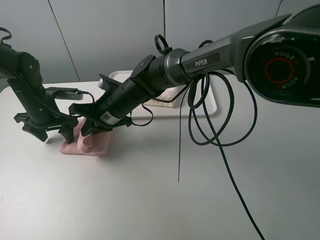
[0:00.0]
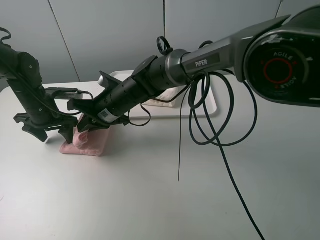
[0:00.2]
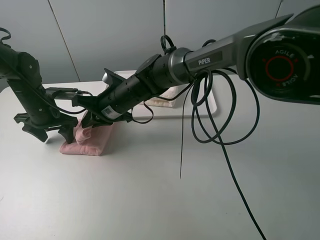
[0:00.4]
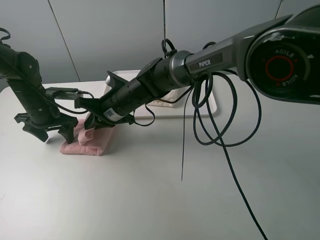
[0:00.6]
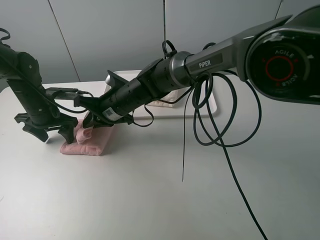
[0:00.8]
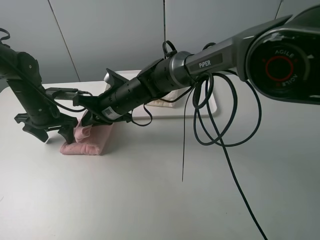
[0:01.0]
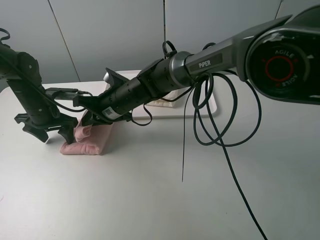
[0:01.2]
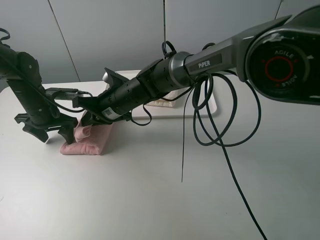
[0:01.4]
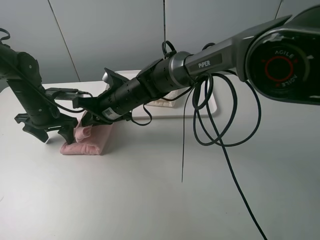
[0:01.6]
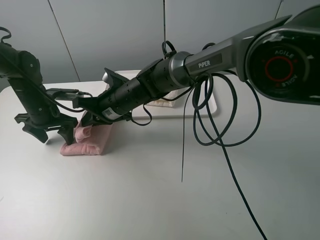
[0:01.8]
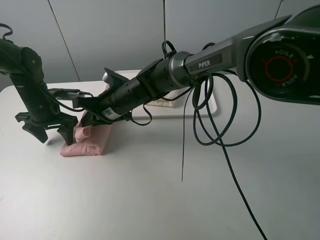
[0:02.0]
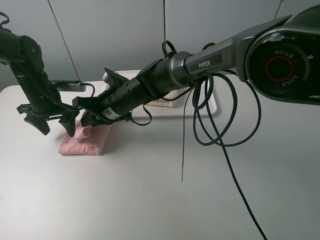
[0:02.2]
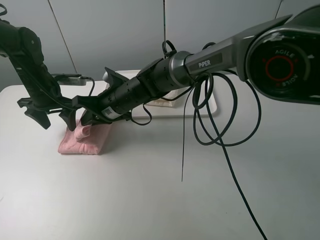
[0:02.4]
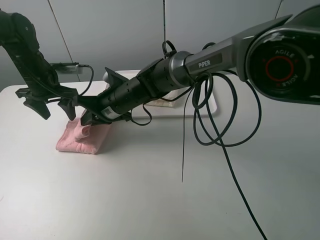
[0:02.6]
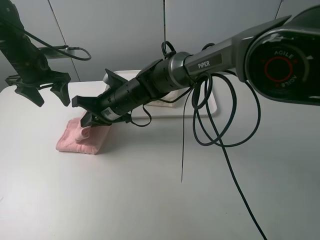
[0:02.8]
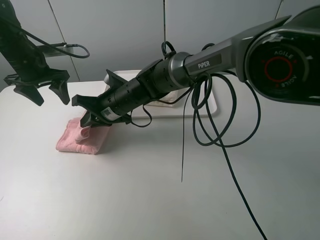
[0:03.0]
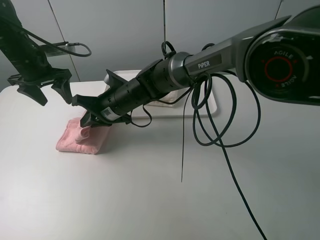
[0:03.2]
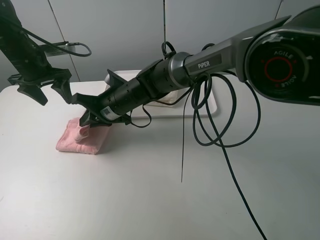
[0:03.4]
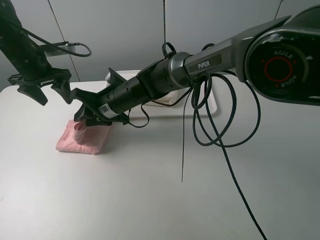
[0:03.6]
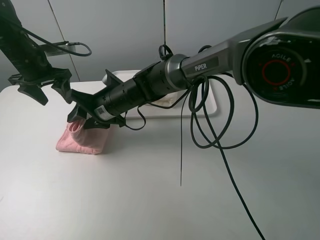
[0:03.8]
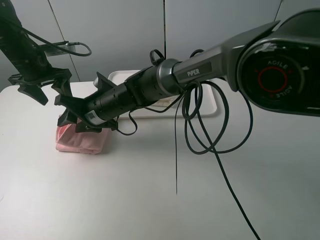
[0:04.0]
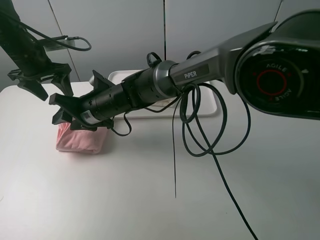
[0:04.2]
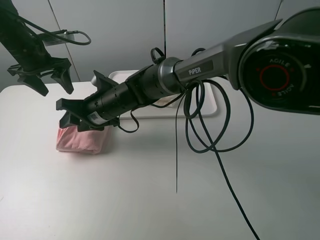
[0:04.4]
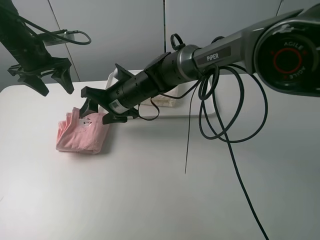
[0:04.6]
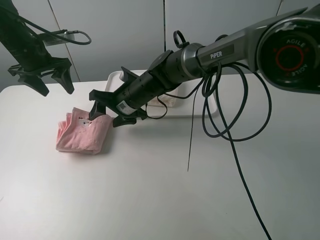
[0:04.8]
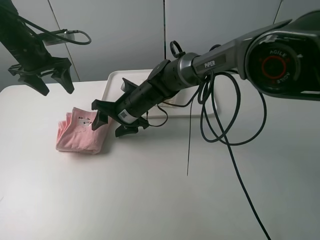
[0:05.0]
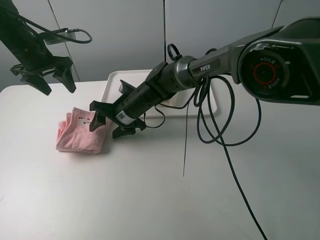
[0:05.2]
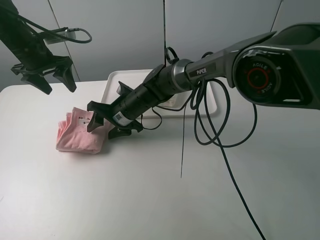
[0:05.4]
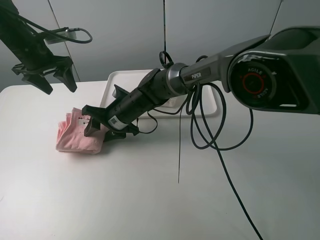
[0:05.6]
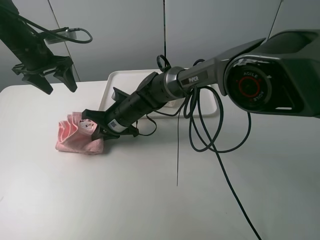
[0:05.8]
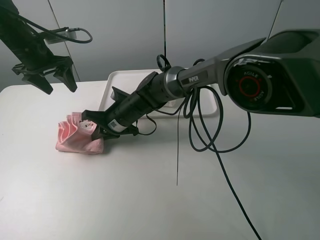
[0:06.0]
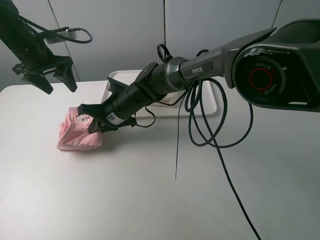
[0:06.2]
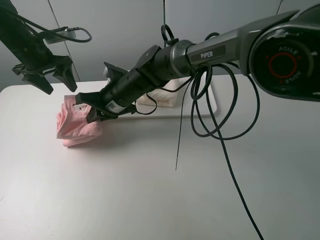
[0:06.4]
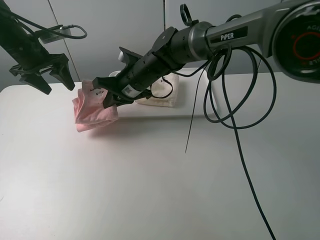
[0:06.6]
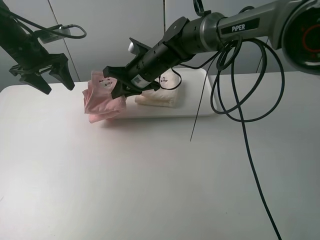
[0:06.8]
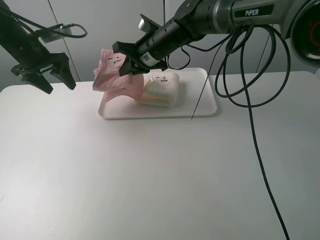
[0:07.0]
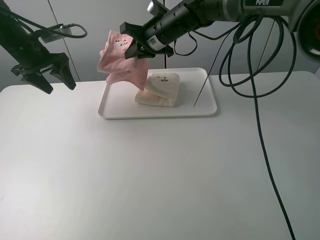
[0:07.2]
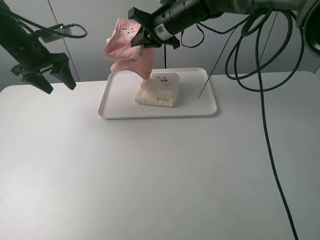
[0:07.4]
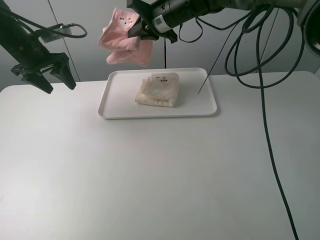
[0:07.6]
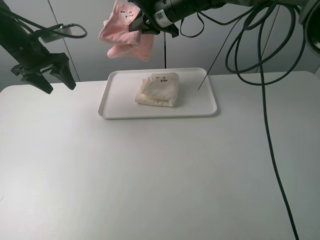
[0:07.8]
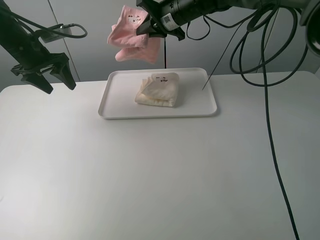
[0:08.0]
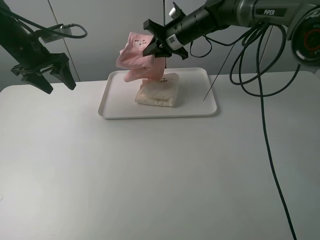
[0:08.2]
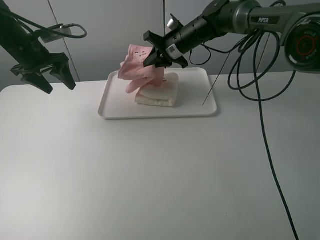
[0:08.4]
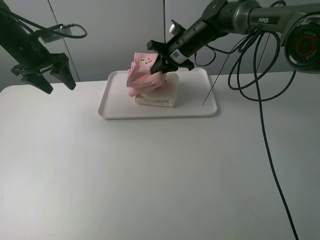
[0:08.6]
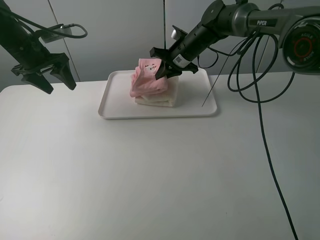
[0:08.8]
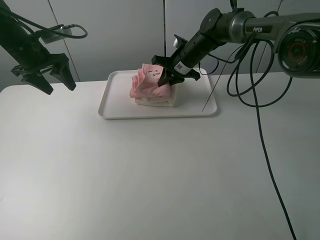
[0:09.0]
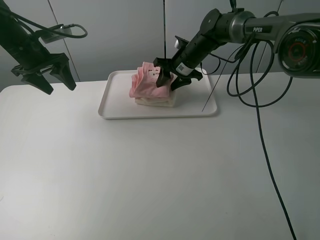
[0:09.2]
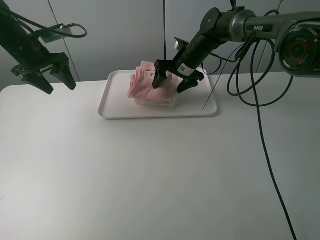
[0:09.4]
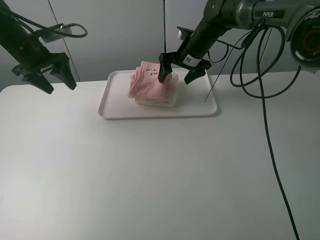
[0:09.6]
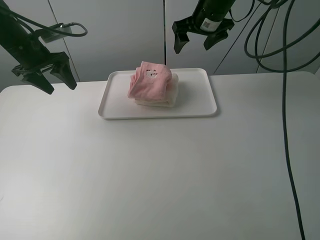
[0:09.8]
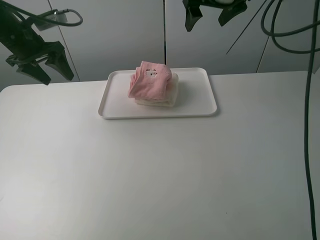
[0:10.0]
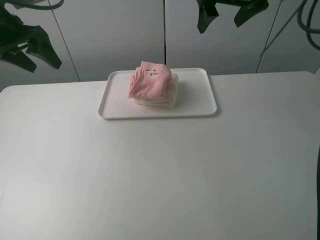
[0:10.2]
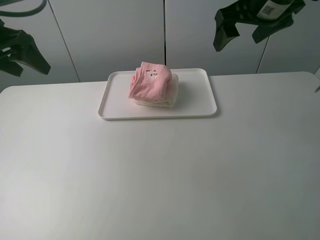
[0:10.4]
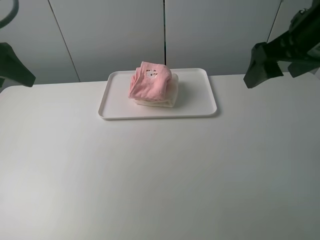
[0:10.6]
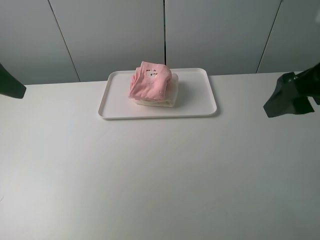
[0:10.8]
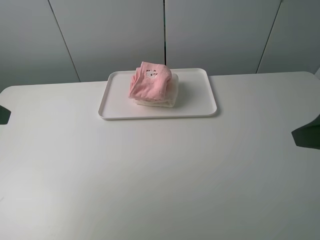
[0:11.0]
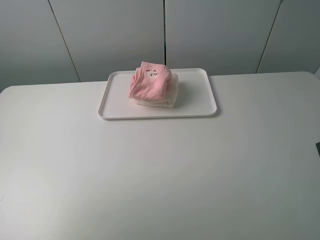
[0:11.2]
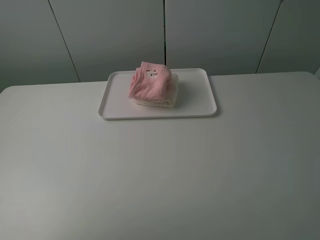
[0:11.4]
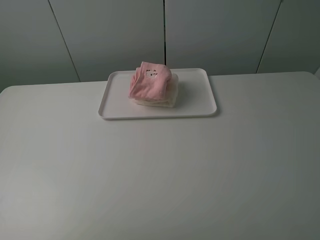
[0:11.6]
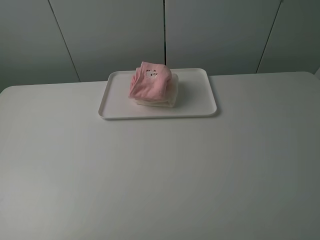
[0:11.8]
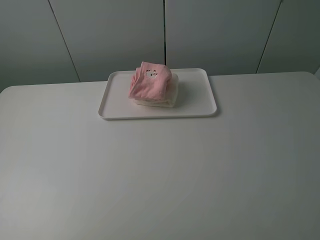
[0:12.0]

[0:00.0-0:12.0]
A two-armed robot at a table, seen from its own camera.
Task of the whole recording: fold one of the towels by two grippers and place it on the tray,then fold another towel by two grippers and place it on the folded towel.
Step, 0.0 to 4.2 s: Fold the pink towel from right to left with right gripper.
Step, 4.4 to 5.8 s: Grasp the pink towel with the right gripper.
Step, 6.0 to 9.6 s: Place the pink towel on the white towel with the right gripper.
0.0 to 1.6 s: The grippers make only small movements.
1.6 to 3.0 s: The left gripper moves upward, about 10 cm.
3.0 to 4.4 s: The right gripper opens up.
4.4 to 6.0 s: The right gripper moves approximately 5 cm, and closes its fingers.
6.0 to 7.6 s: The right gripper shifts approximately 25 cm upward, forward and to the right.
7.6 to 9.0 s: The right gripper is displaced downward by approximately 10 cm.
9.0 to 10.4 s: The left gripper goes about 15 cm backward and upward; the right gripper heads upward, backward and to the right, covering approximately 25 cm, and opens up.
10.4 to 12.0 s: The grippers both shift backward by some 30 cm.

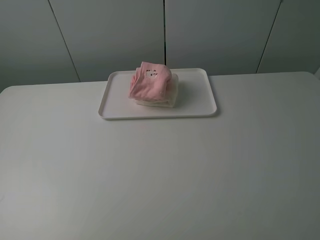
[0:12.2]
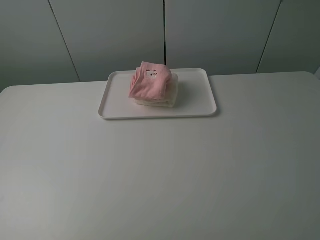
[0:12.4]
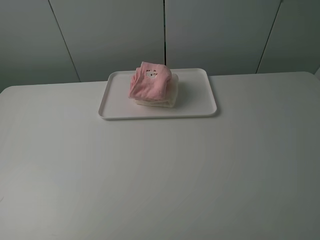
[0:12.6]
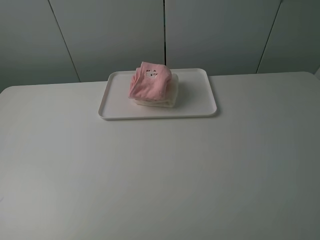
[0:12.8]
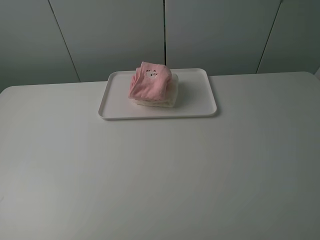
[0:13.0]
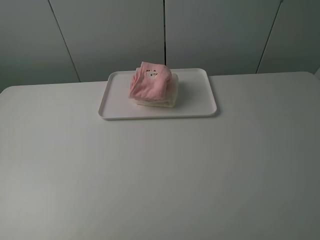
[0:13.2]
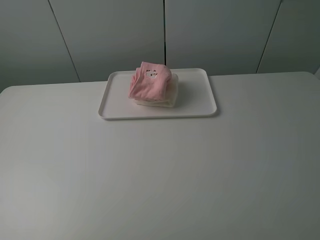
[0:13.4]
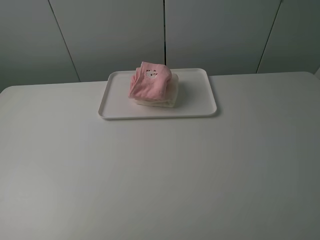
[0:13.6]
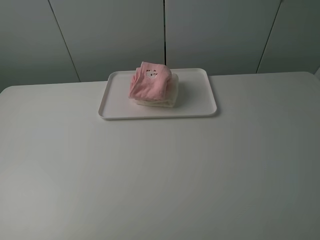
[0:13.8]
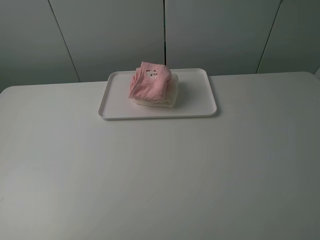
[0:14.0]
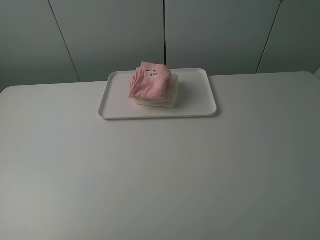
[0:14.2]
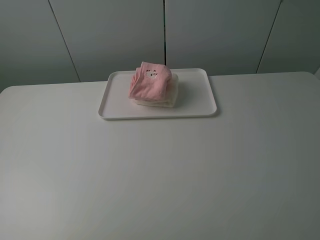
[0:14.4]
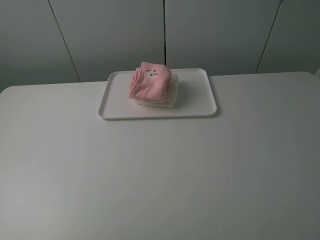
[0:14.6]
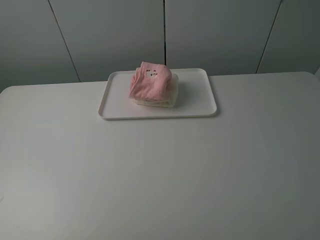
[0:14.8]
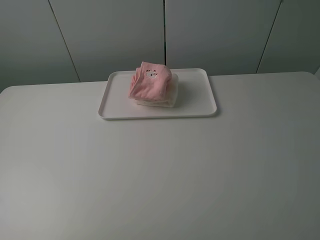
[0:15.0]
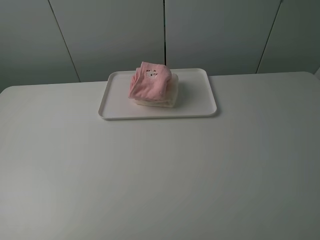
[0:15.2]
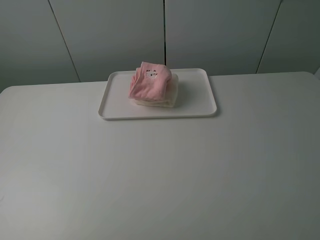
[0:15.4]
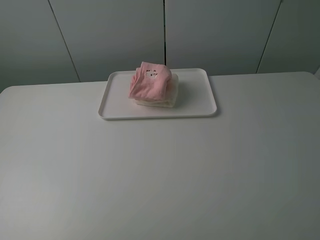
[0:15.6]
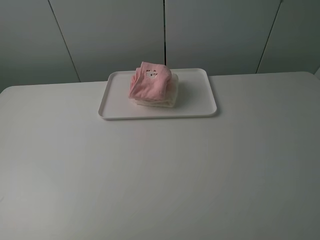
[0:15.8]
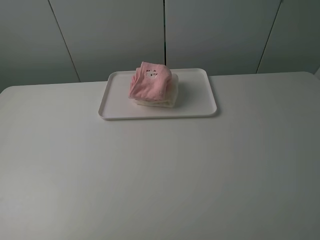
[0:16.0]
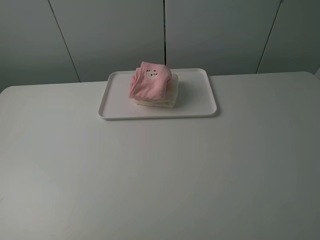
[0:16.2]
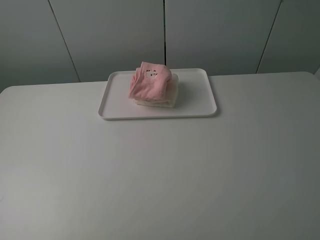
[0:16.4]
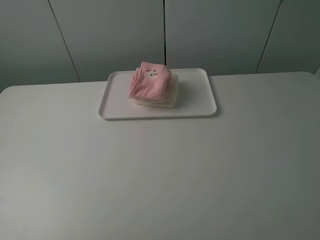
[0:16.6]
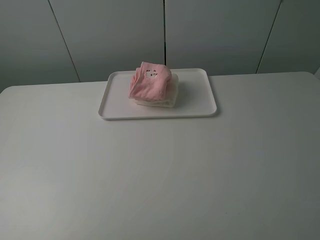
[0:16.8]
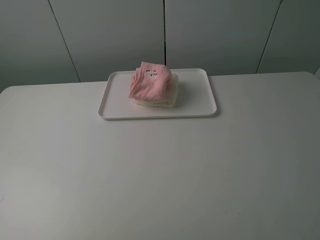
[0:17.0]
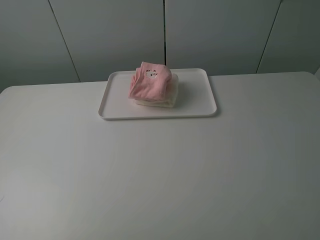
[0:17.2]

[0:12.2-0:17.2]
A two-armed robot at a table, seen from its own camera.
Task of the whole recording: fold one of the towels by two grippers and place it on the tray,then fold another towel by two grippers and place it on the folded towel.
15.6 to 17.2 s: Both grippers stay put.

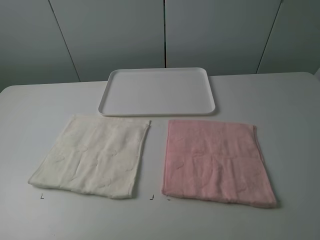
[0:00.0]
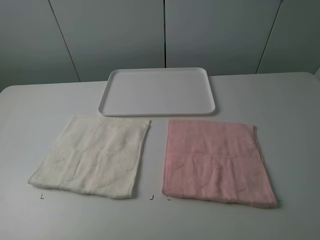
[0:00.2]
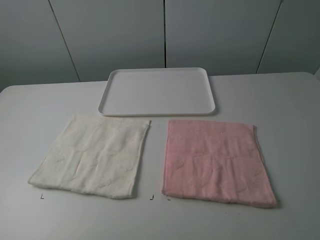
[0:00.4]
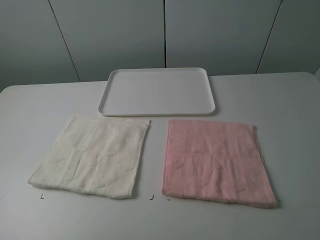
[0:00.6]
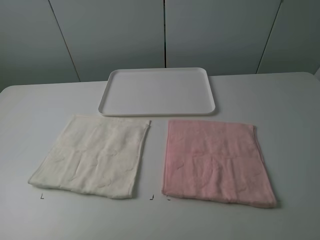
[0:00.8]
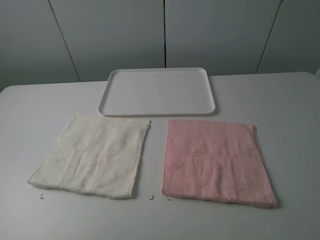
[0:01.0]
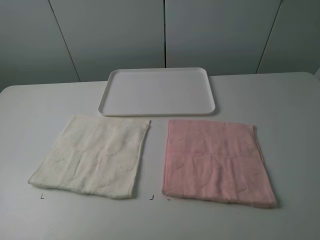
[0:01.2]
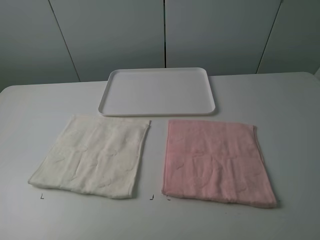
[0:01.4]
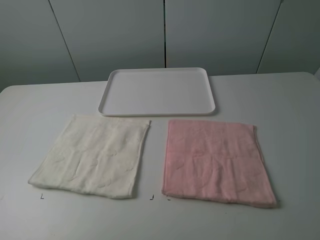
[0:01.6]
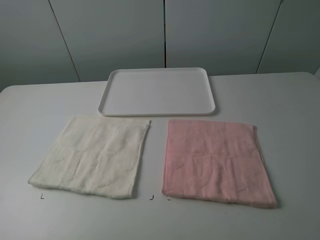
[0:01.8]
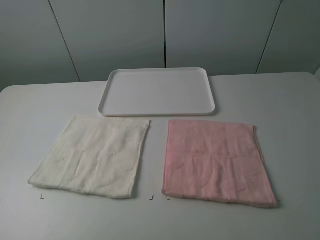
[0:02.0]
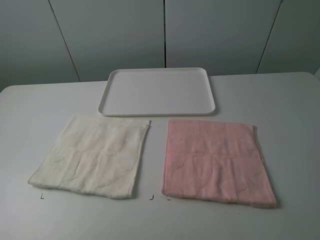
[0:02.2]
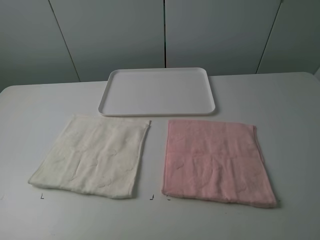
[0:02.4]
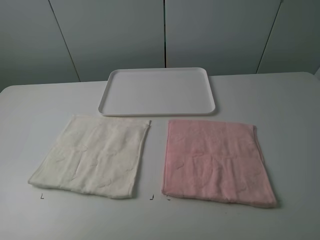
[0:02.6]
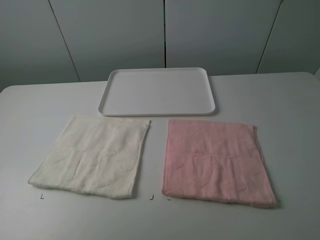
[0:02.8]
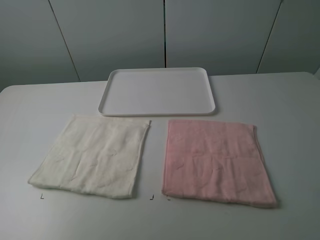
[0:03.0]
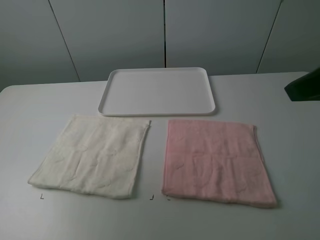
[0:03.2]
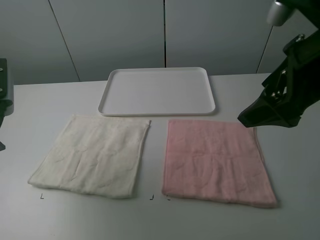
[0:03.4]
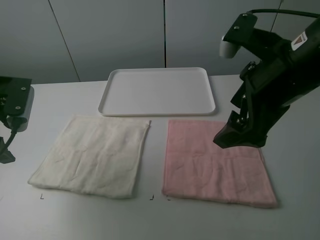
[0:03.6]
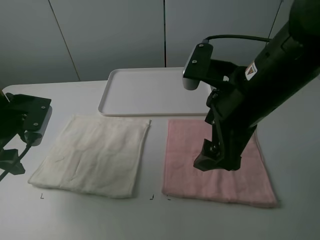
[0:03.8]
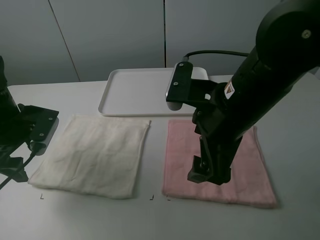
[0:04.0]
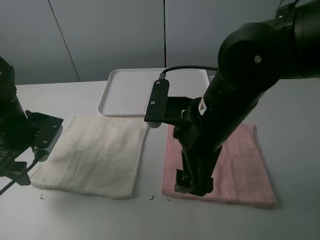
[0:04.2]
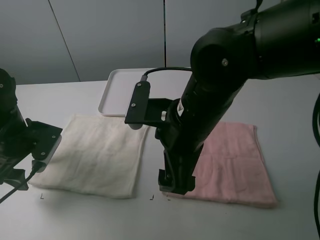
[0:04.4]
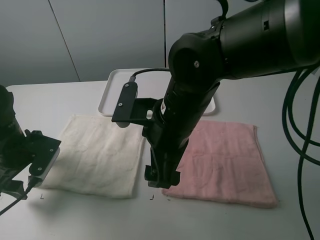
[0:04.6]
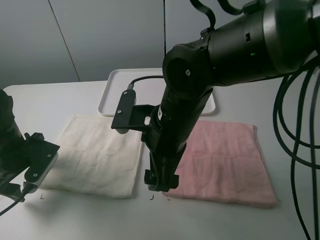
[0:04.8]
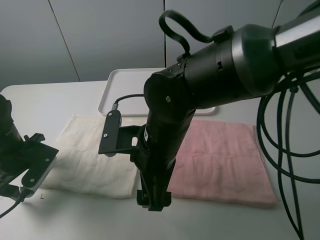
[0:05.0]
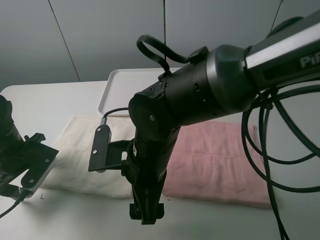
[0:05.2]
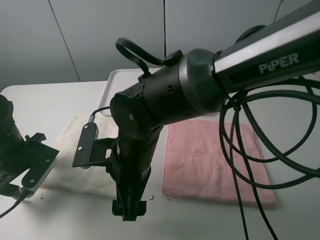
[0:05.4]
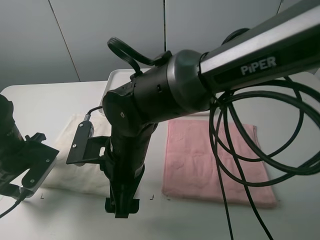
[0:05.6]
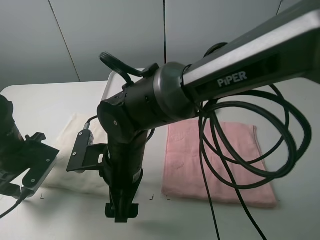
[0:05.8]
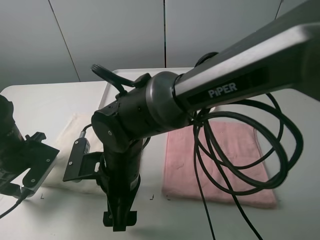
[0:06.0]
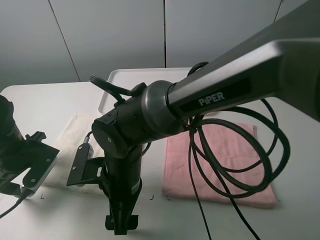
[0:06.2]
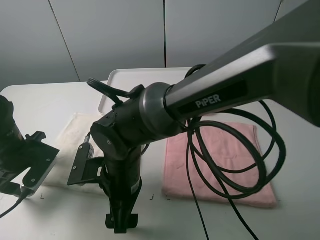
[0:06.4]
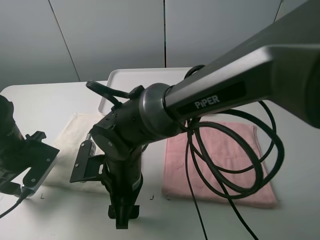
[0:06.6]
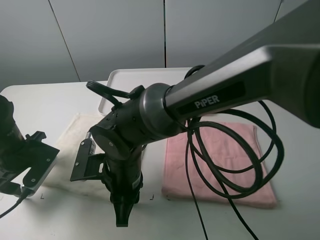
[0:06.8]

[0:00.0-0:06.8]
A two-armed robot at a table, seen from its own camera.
Task of the whole recording: fold one of the towels by two grippers and place it on the tray,then fold another towel by two grippers and place it on the folded towel.
0.0 to 1.4 s: The two grippers keep their place.
2.8 to 4.0 s: The left gripper shifts about 25 cm downward and forward; the right gripper moves to the left, downward and forward, roughly 25 cm.
4.0 to 5.4 s: The right gripper is displaced to the left and downward by approximately 15 cm; the left gripper travels downward by roughly 5 cm.
5.4 to 6.8 s: The right gripper closes its fingers.
